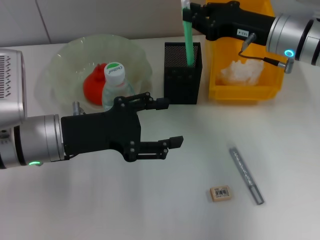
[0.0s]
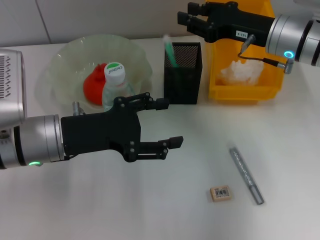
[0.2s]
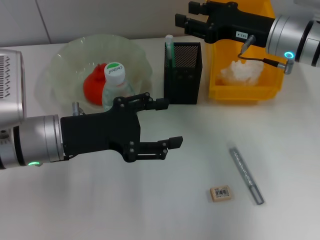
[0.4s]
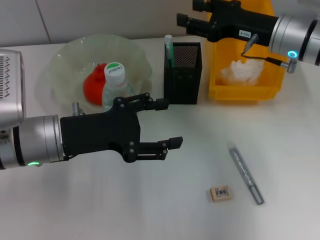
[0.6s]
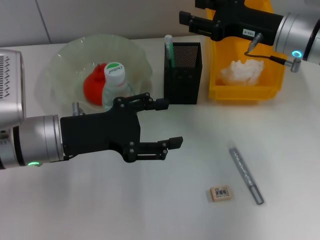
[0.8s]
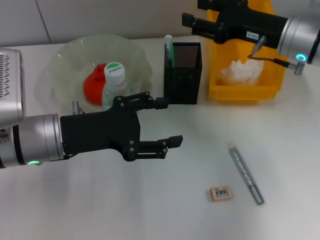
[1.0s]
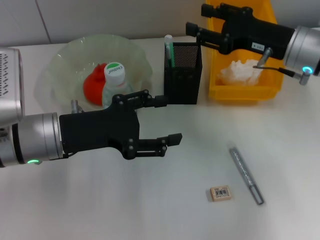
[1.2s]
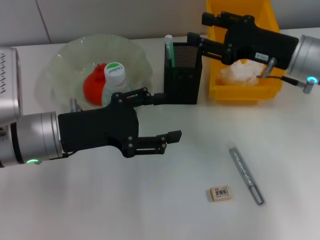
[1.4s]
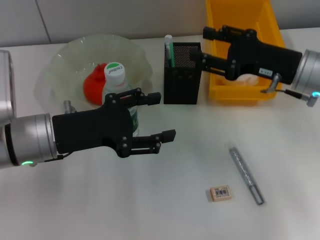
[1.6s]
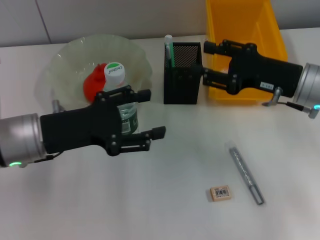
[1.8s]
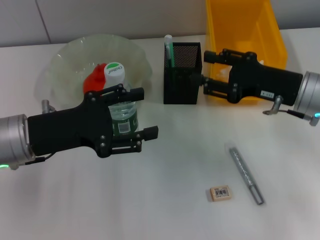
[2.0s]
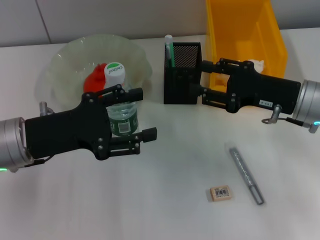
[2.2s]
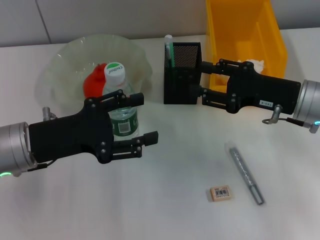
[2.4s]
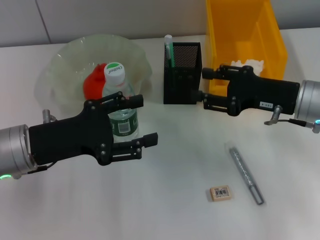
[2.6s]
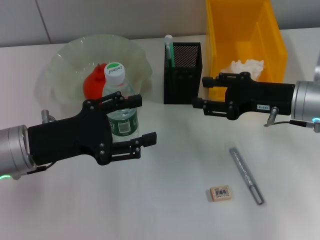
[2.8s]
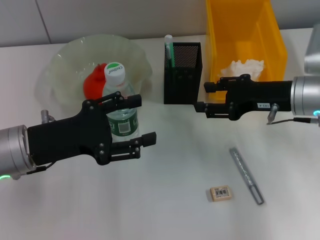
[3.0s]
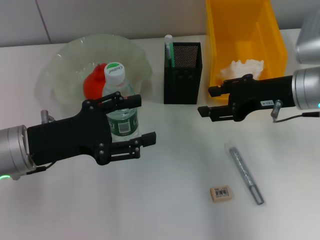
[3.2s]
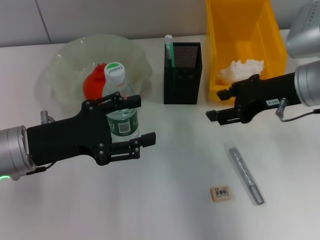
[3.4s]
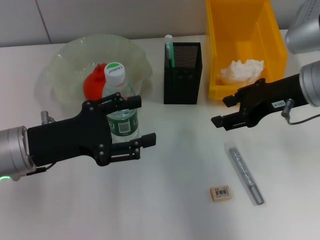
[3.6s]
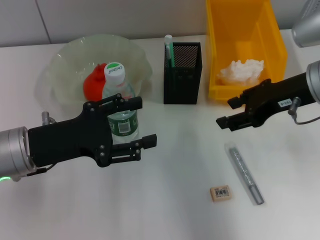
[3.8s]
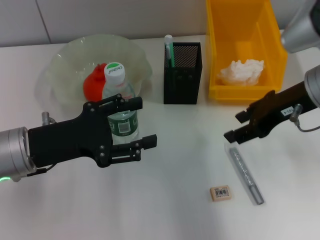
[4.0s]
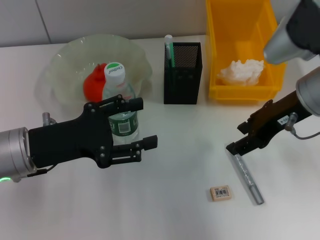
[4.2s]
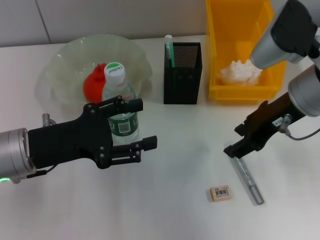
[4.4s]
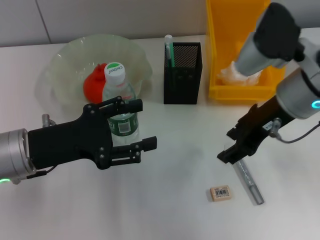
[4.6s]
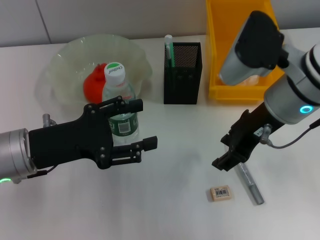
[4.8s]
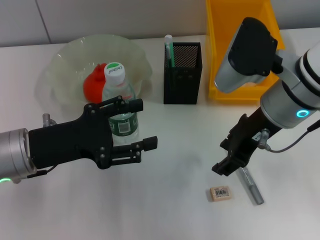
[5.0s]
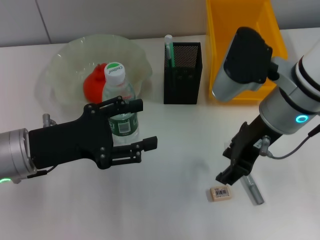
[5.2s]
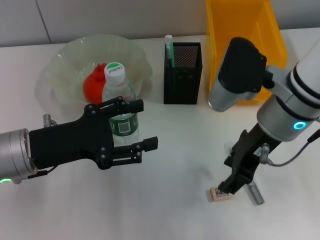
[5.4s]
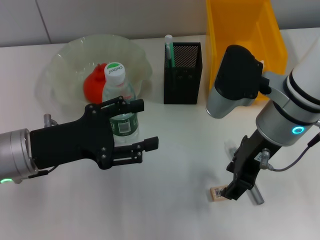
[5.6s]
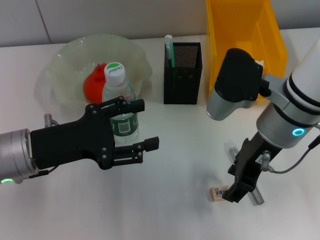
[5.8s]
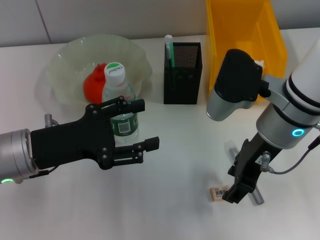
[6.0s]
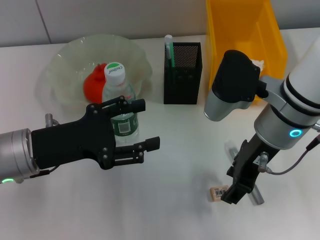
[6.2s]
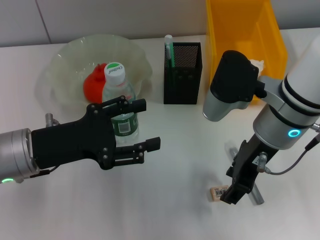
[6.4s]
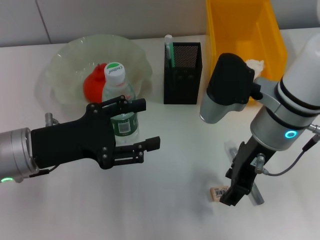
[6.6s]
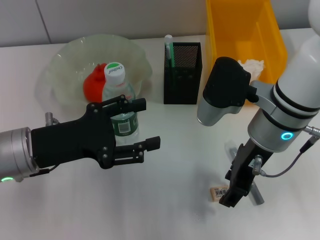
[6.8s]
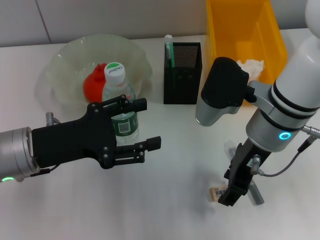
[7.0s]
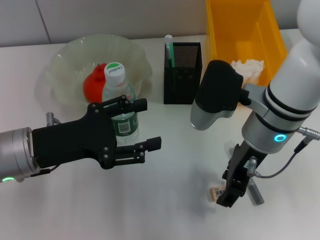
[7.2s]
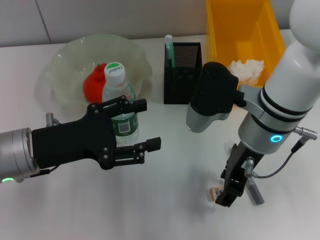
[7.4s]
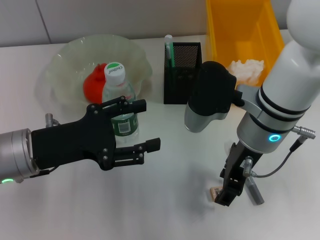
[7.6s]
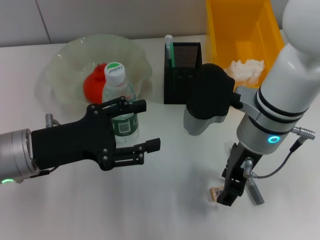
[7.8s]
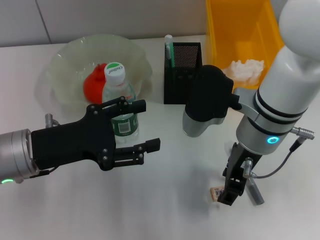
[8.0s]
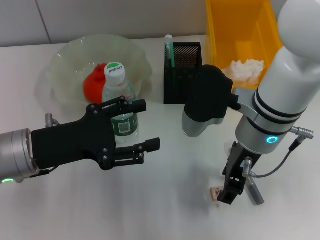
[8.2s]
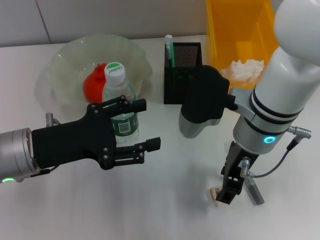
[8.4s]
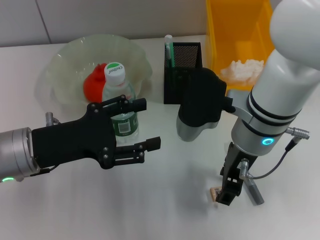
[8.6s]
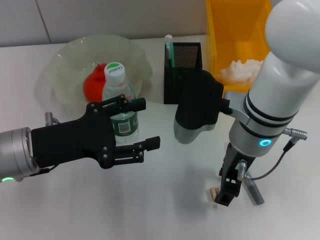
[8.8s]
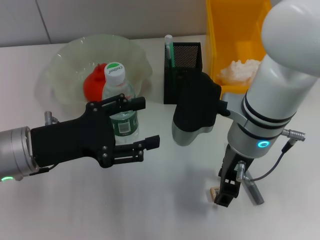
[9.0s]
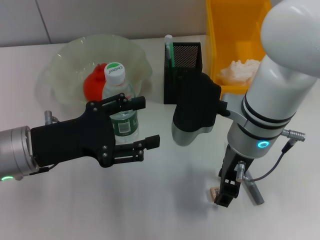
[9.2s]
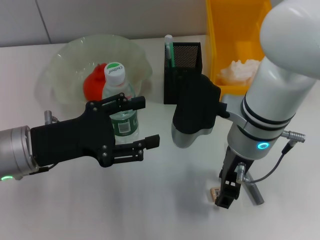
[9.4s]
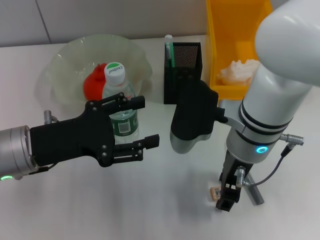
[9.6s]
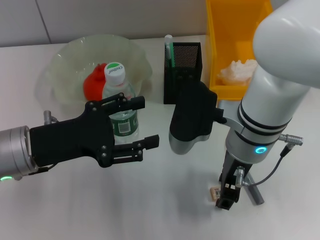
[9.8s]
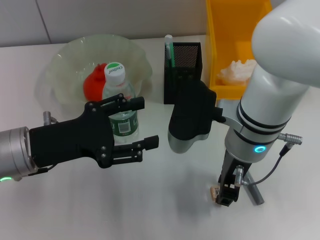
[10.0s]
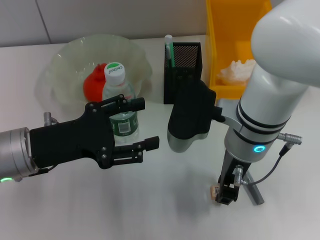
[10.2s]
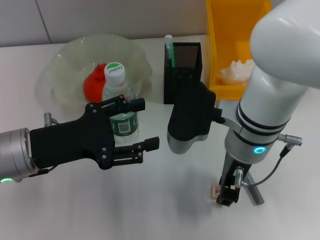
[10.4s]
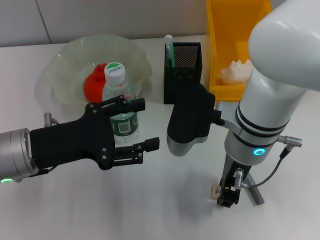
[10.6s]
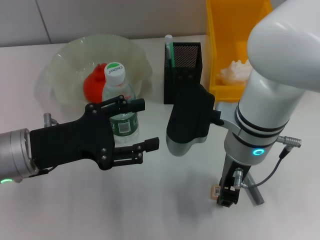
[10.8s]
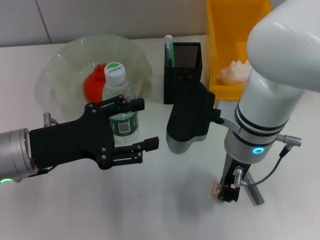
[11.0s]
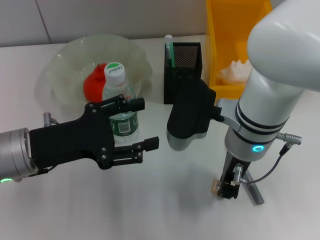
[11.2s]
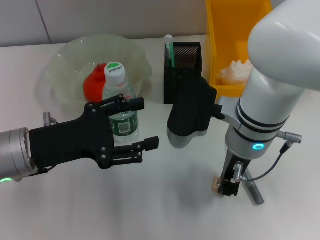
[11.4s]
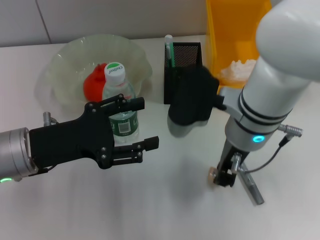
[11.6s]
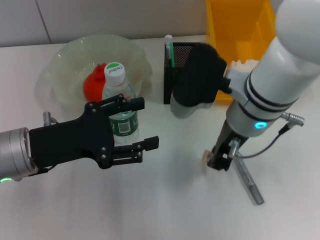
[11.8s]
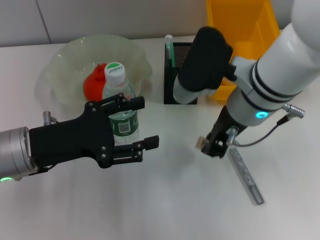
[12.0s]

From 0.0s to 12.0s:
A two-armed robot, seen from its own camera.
Step, from 0.8s to 11.0s: Grab the eraser with the right hand.
From 0.0s to 1.6s: The right gripper shifts roughly 5 cm backward, and opens up.
From 3.0s to 4.4s: The right gripper heads upward, covering roughly 5 cm.
From 4.4s to 6.0s: The right gripper shifts by about 5 cm.
From 6.0s to 9.0s: There are only small adjustments of the grippers.
From 9.0s to 10.4s: The two grippers keep their place.

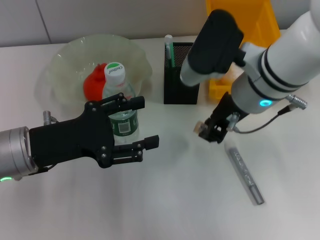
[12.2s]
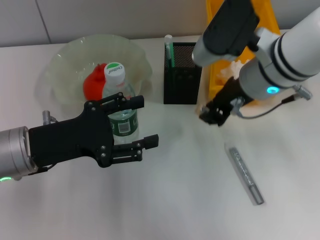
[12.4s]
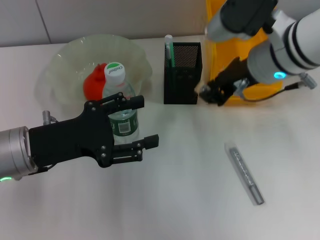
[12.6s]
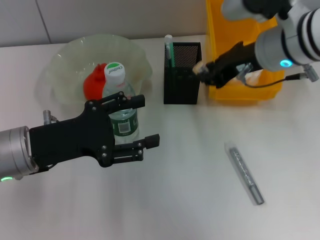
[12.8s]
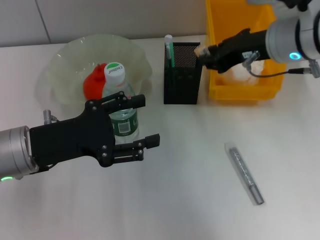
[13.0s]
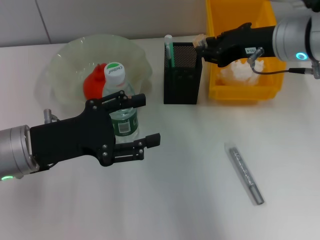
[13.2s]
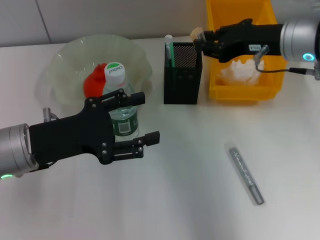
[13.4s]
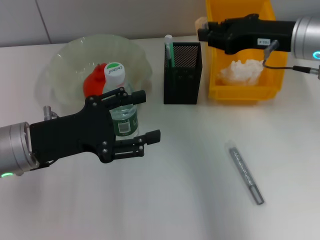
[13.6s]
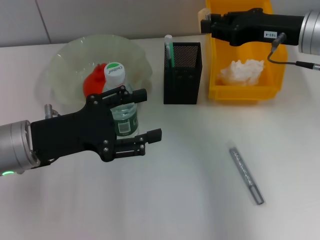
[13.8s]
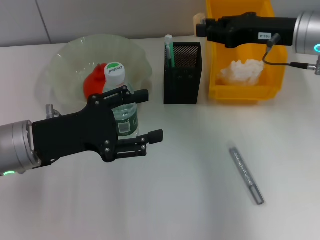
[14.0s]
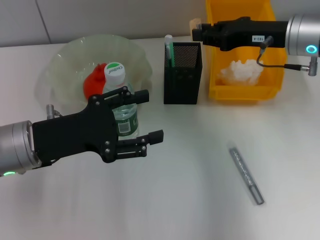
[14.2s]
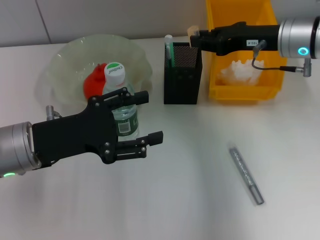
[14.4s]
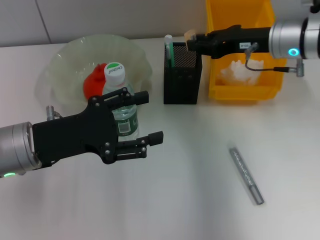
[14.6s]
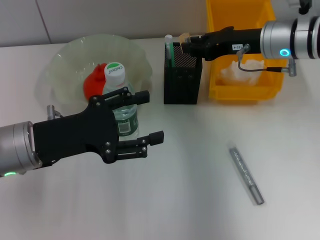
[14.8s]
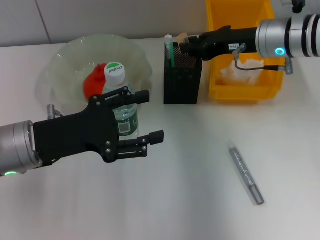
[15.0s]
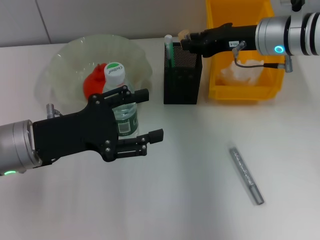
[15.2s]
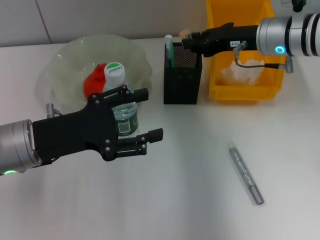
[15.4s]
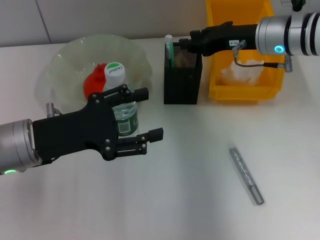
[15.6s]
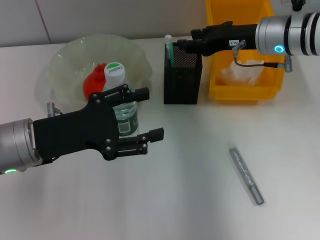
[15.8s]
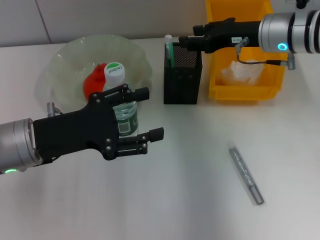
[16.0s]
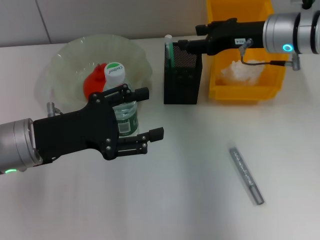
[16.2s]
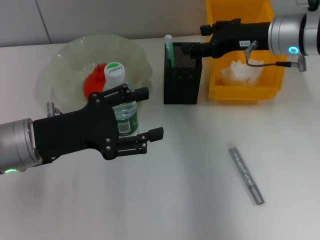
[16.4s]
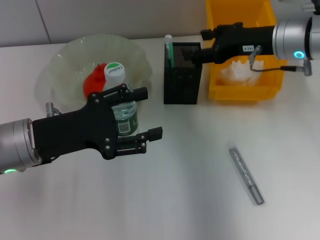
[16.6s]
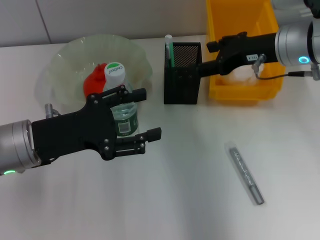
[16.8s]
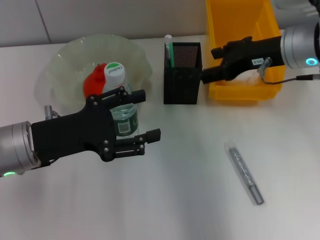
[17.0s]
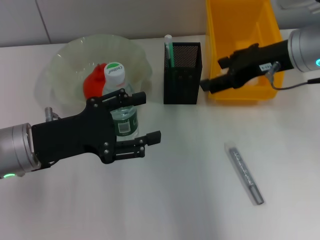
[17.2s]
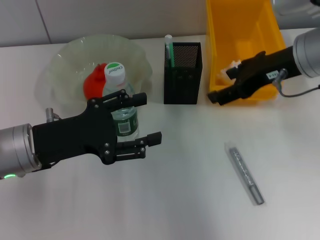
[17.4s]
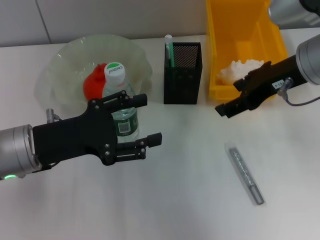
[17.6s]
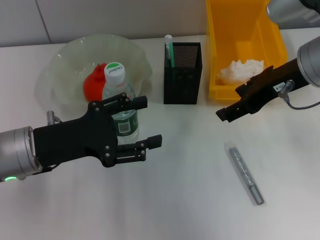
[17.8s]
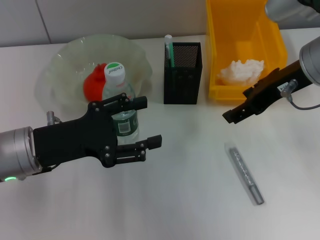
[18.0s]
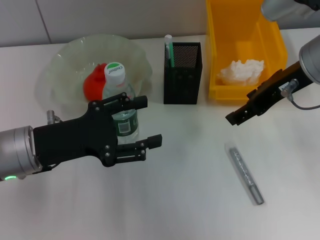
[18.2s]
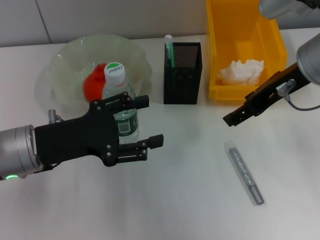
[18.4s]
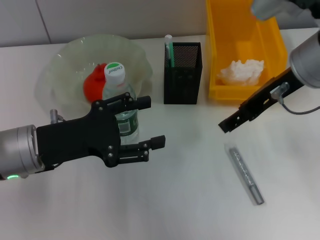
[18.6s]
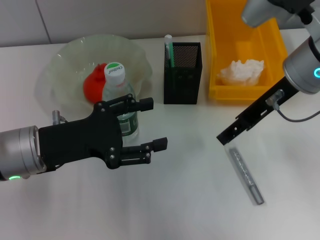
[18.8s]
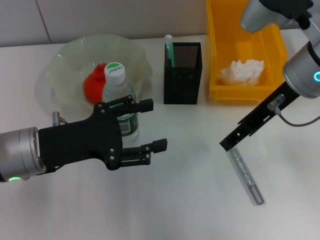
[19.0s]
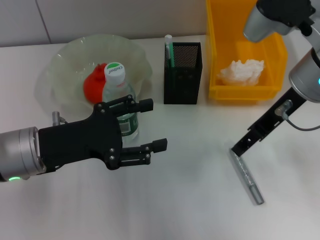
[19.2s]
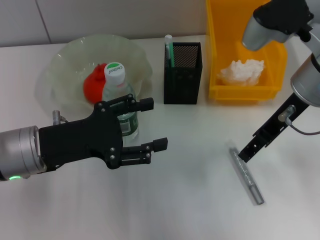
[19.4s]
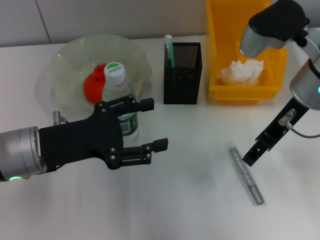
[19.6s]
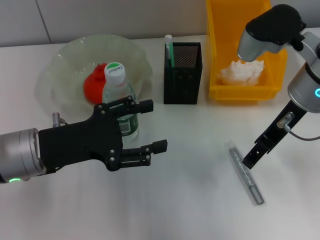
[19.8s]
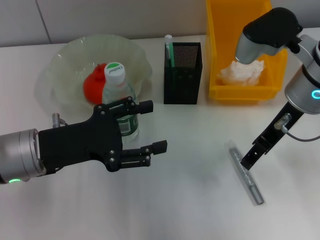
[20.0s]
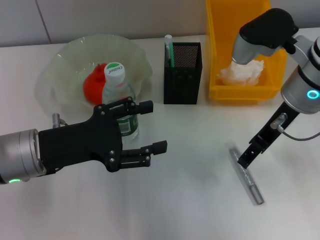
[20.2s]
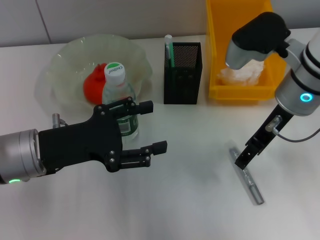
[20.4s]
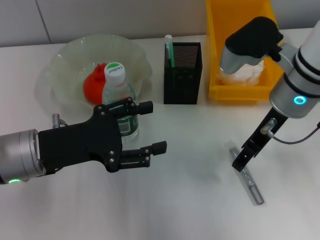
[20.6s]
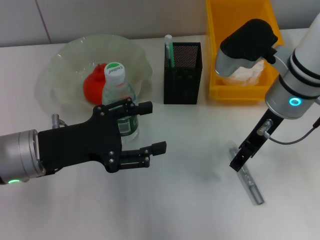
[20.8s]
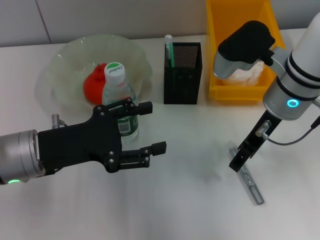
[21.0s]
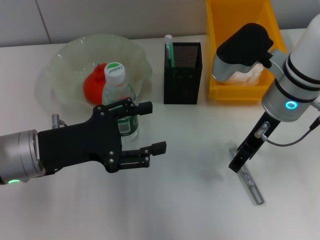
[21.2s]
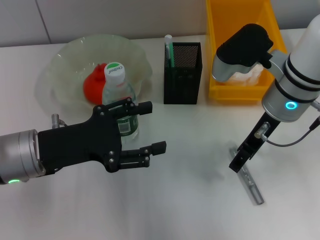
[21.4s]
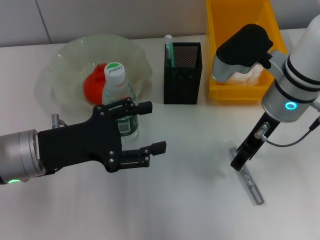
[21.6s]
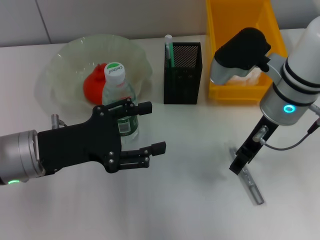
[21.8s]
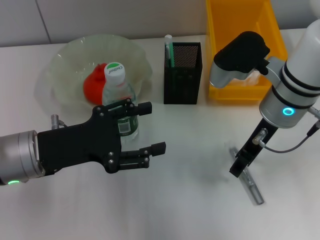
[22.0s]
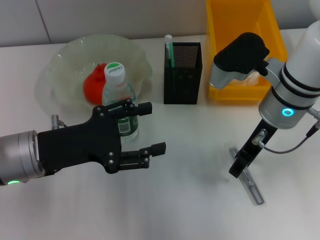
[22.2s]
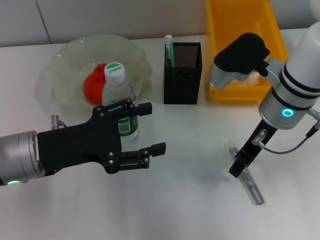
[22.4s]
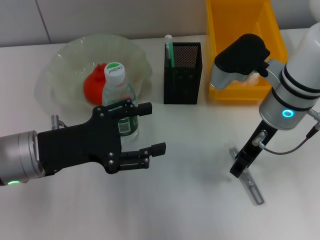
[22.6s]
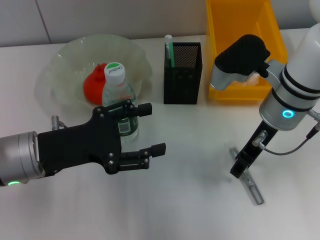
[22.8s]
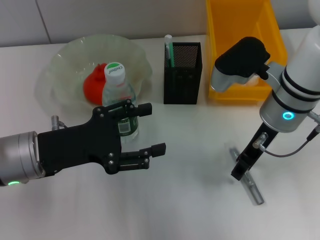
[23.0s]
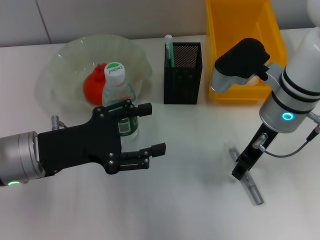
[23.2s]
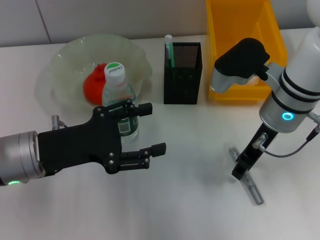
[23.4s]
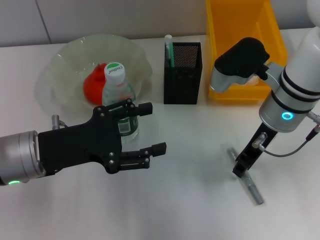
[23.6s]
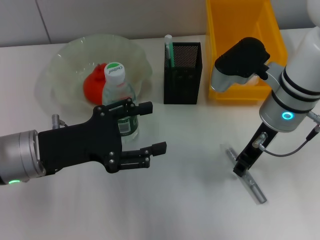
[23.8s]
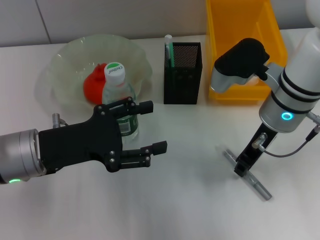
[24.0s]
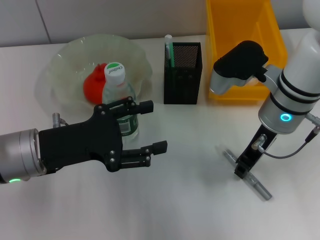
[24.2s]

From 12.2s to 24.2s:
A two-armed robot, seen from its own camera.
Step, from 12.2s to 15.8s: Put the eraser into the pen holder with the right hand.
From 12.2s to 13.8s: The right gripper is displaced to the right by about 10 cm.
From 13.8s to 15.2s: The right gripper changes place by some 5 cm.
From 15.2s to 16.6s: The right gripper opens its fingers.
From 16.6s to 18.2s: The right gripper heads backward and upward, covering about 10 cm.
From 19.8s to 21.2s: The grippers stay close to where they were, moving slightly.
From 21.2s to 22.6s: Both grippers stay put.
From 22.6s to 24.2s: The right gripper closes up.
